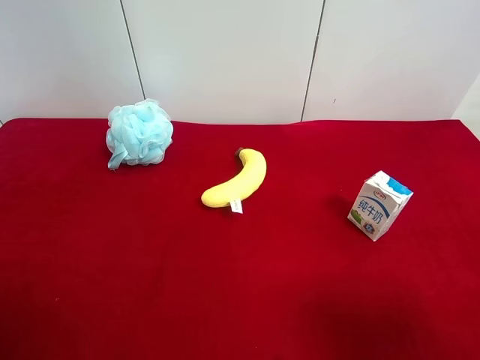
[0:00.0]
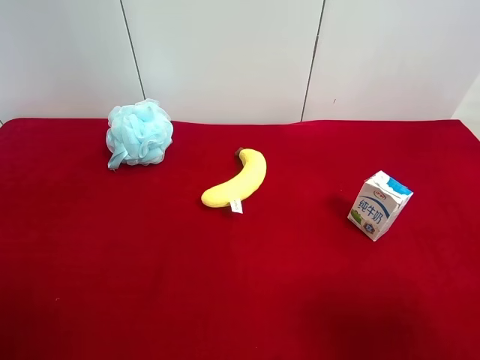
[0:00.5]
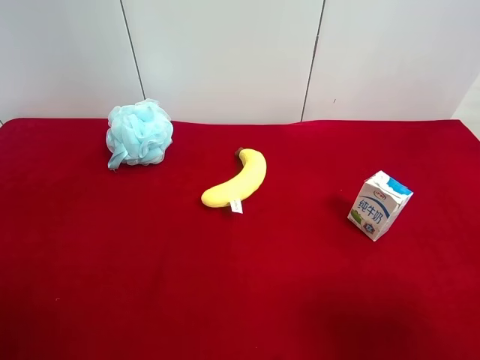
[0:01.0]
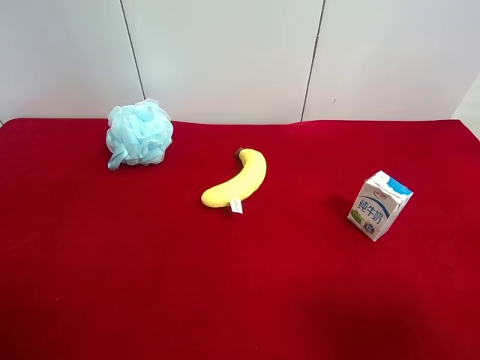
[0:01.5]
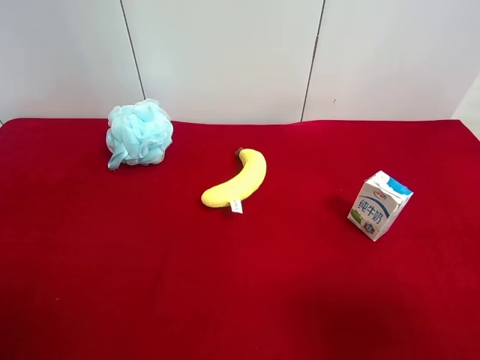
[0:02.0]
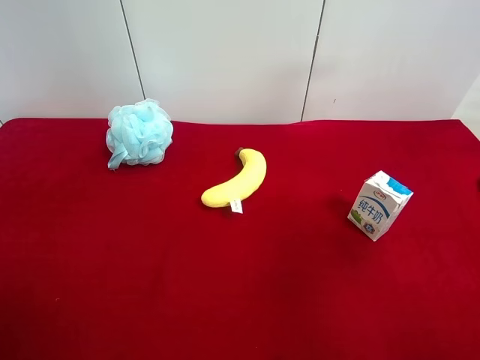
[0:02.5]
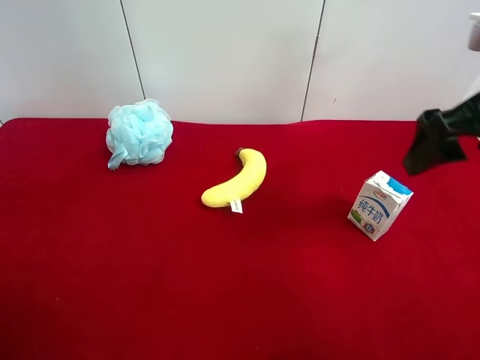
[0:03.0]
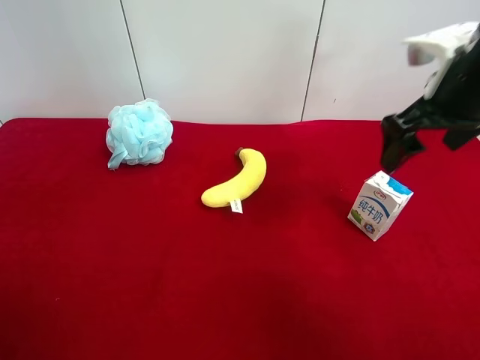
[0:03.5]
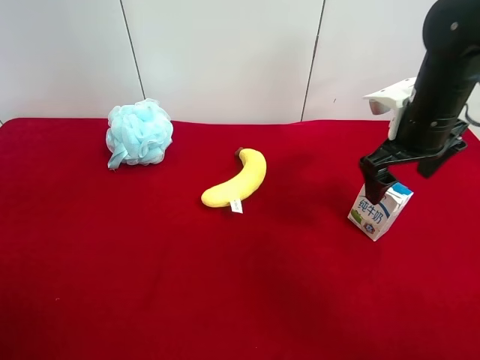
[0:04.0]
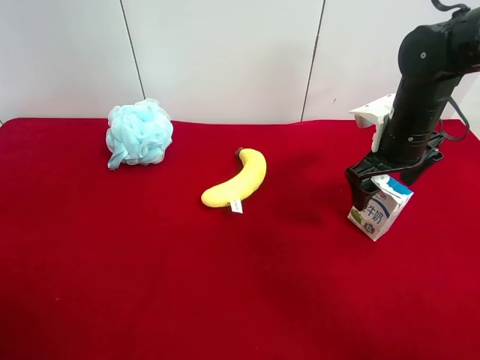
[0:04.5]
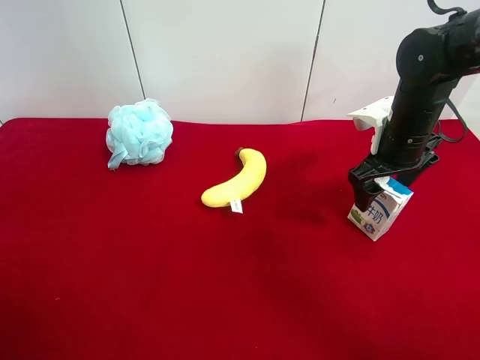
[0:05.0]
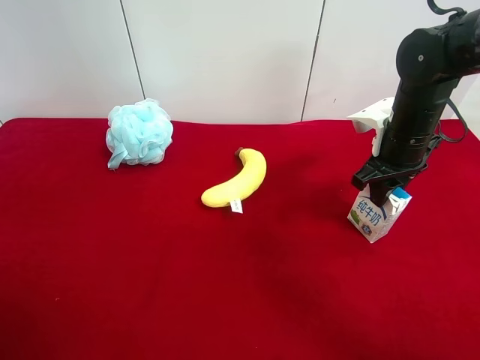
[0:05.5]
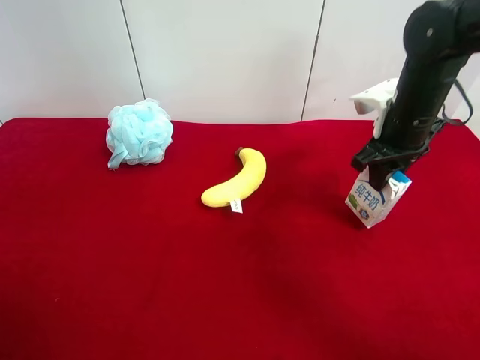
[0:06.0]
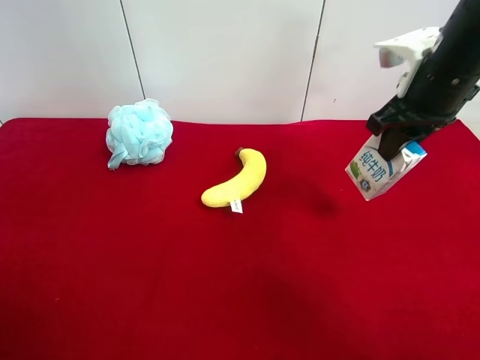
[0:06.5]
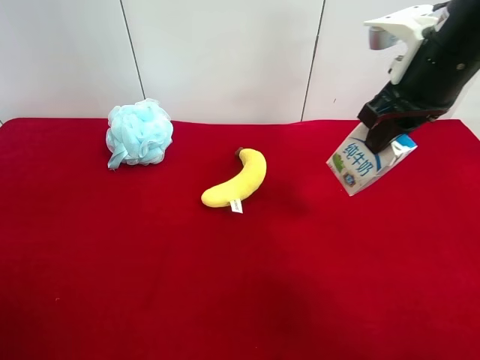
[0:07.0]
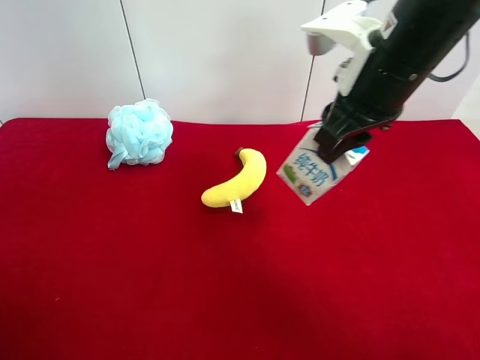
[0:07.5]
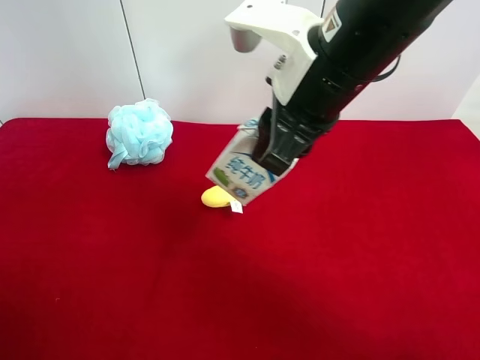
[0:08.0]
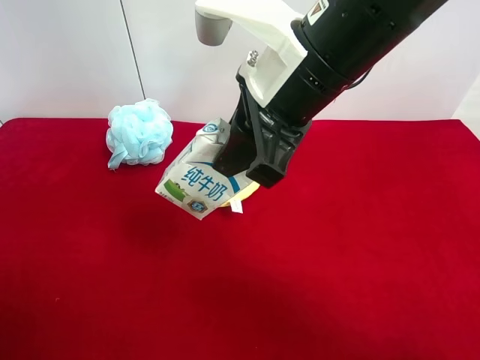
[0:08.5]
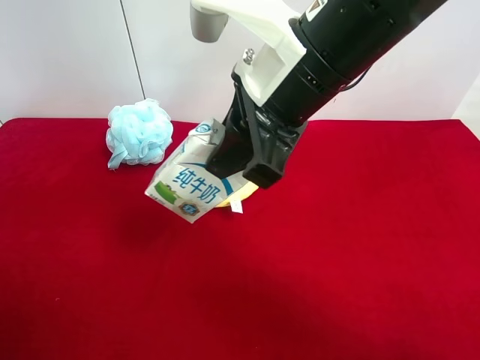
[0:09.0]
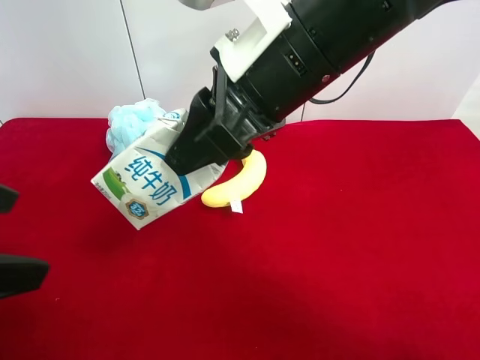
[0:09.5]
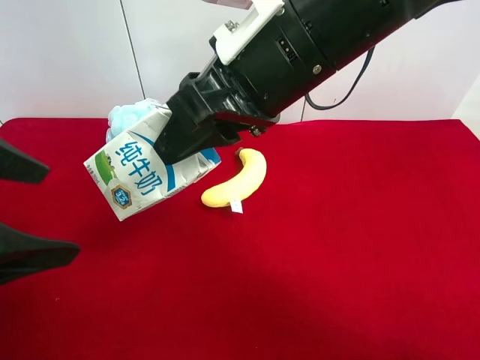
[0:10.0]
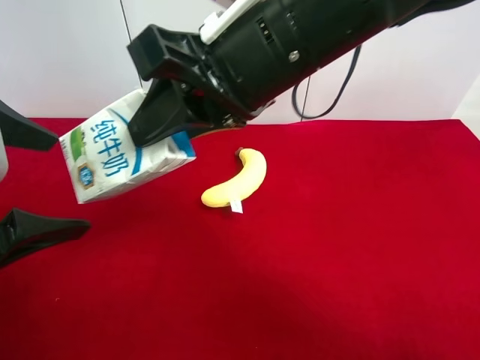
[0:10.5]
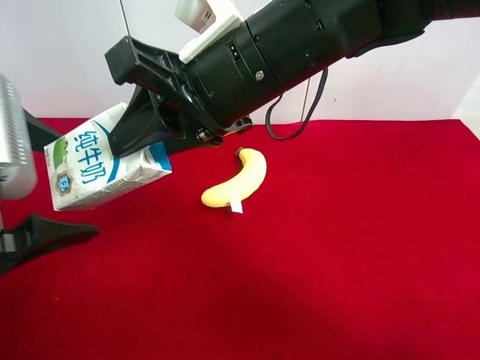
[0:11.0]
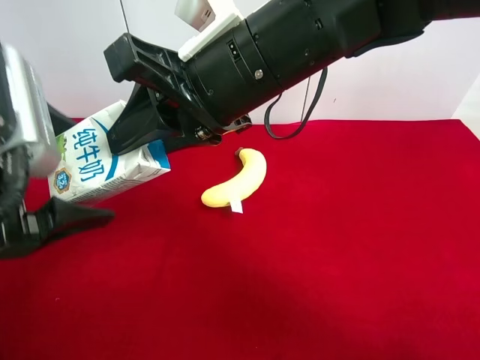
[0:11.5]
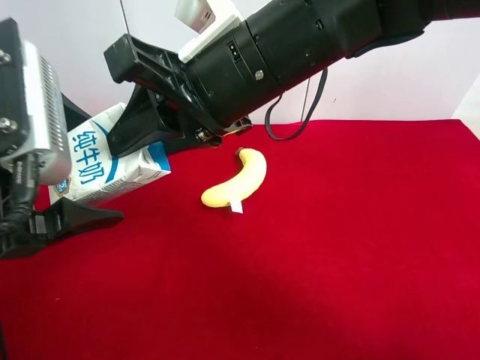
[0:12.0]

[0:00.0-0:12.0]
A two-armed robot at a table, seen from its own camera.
Task of the whole recording: use the right gripper to pick up the item and transfer it from the right gripper to the left gripper.
Step, 0:00.0 to 0:05.0: Use the right gripper to grab the milk on the right side of the table.
0:02.0 to 0:04.0: The right gripper is displaced forward by about 30 cm.
0:04.0 to 0:06.0: The right gripper closes up.
0:06.0 to 0:08.0: The right gripper shifts some 20 cm to the left, backward and upward.
0:08.0 to 0:10.0: The left gripper heads forward and to the right, covering some 10 cm.

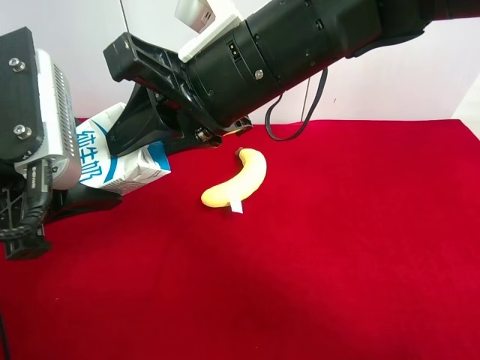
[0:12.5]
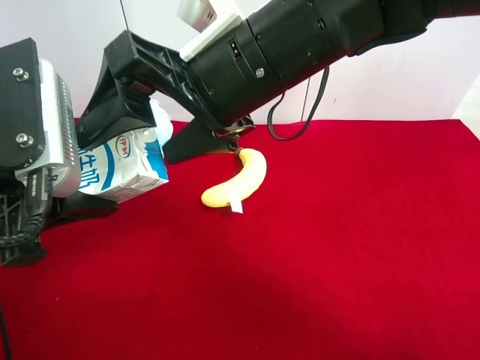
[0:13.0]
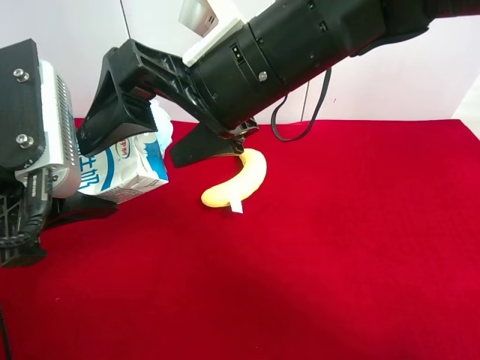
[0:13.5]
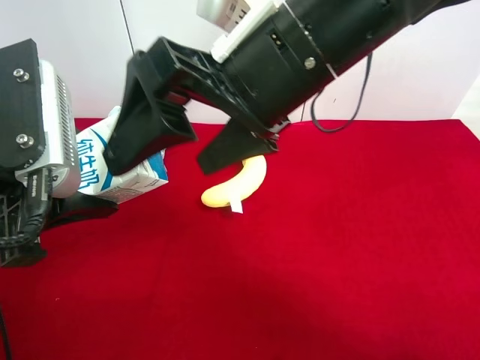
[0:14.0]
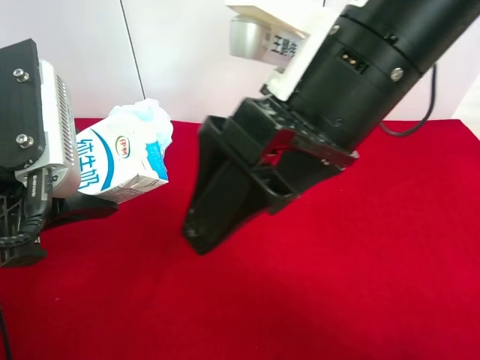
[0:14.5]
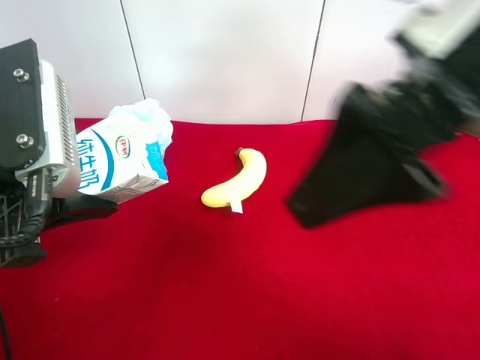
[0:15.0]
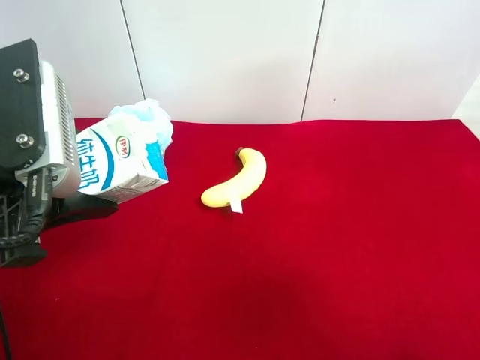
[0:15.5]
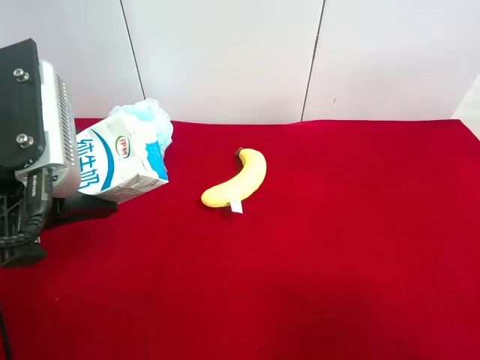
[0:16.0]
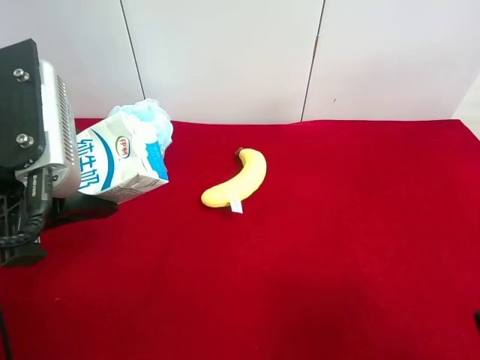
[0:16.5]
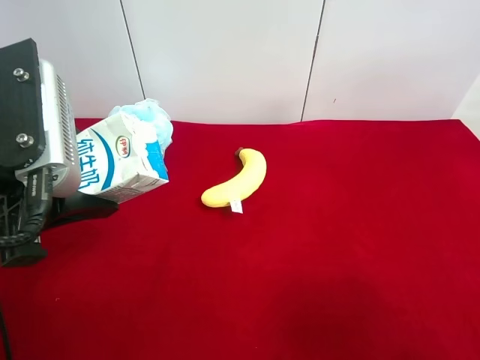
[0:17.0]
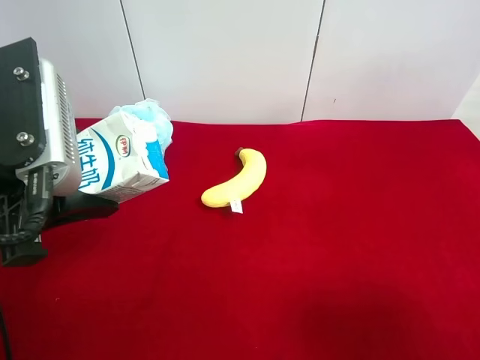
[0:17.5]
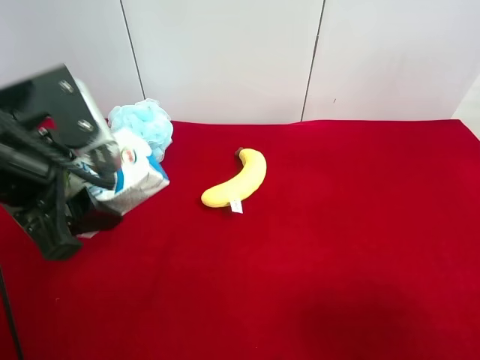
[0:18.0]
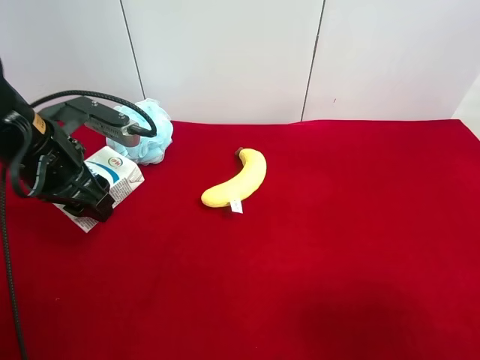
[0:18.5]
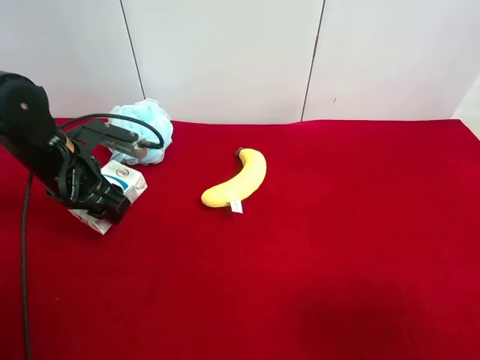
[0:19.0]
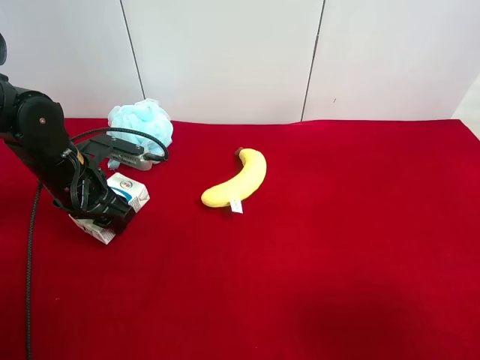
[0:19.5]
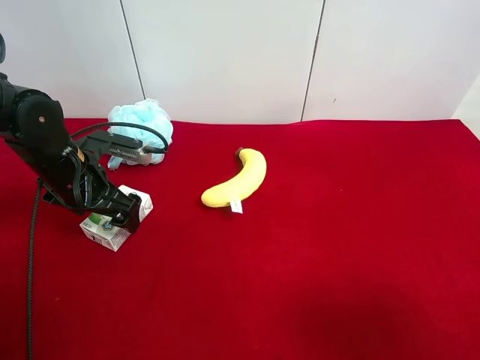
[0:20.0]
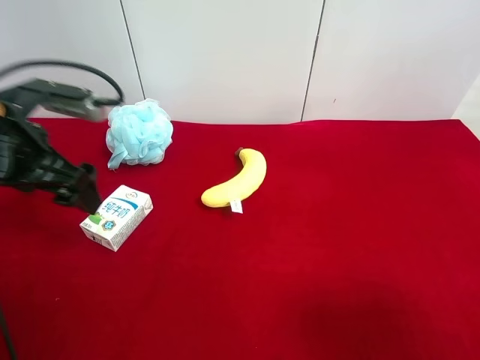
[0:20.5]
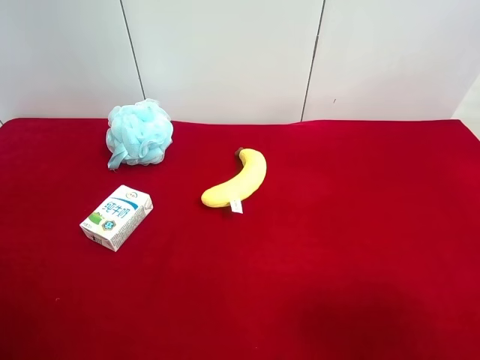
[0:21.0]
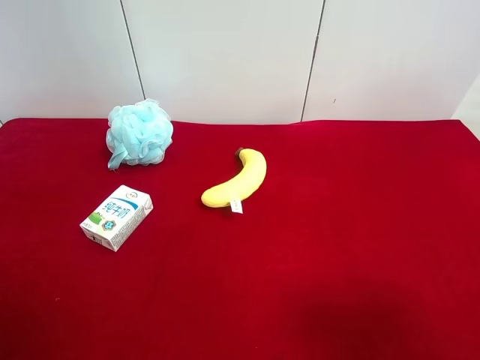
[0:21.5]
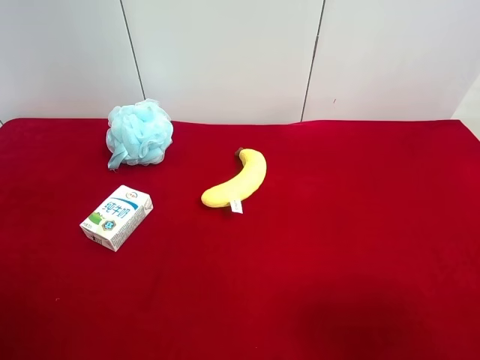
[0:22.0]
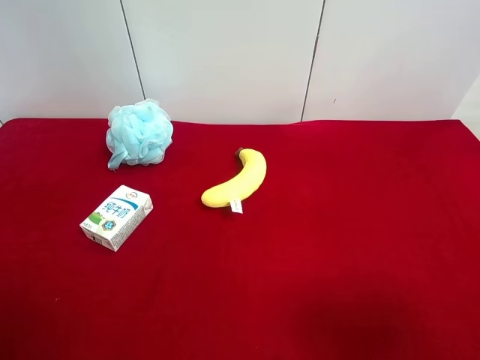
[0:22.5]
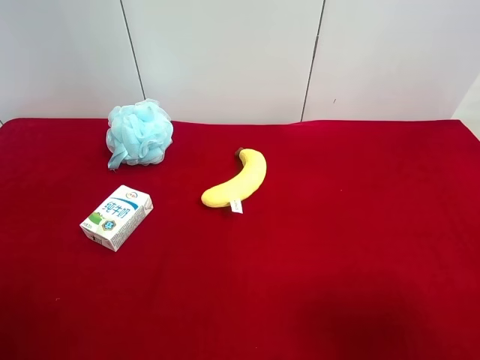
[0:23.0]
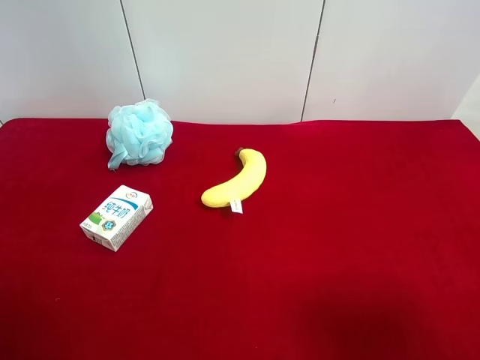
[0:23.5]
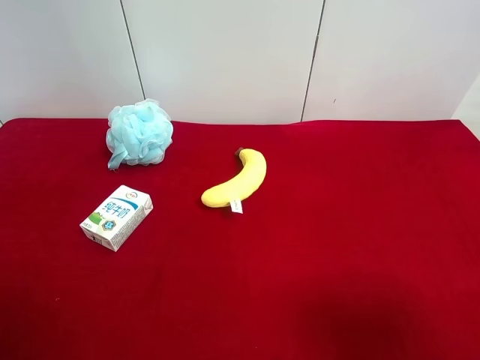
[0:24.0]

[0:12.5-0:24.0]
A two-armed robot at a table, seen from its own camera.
Task of the whole recording: use the right gripper to pick up the item and transfer it from the right gripper to the left gripper.
Step, 0:13.5 to 0:19.5: The left gripper places milk on the left side of the table.
0:12.5 to 0:14.5: The right gripper travels to the right and backward by some 10 cm, and opens.
0:14.5 to 0:16.5: The right gripper goes some 25 cm to the right and backward.
0:16.5 to 0:18.5: The left gripper shifts some 15 cm forward and downward.
0:18.5 to 0:20.0: The left gripper moves downward, roughly 5 cm, and opens its fingers.
0:20.0 to 0:22.0: The left gripper travels backward and upward by roughly 35 cm.
